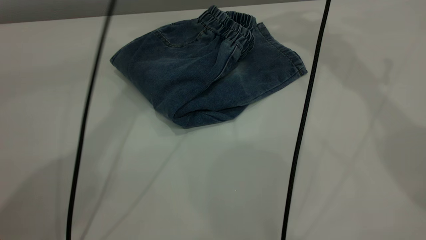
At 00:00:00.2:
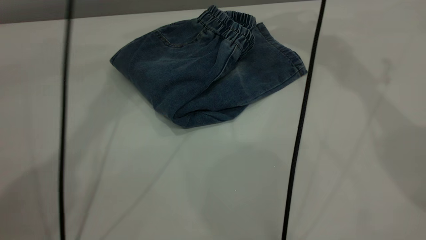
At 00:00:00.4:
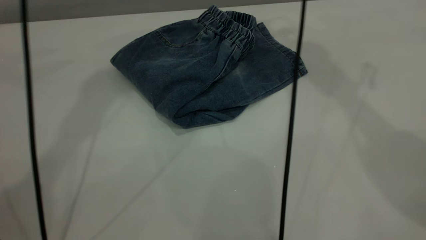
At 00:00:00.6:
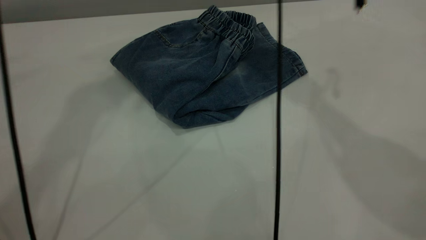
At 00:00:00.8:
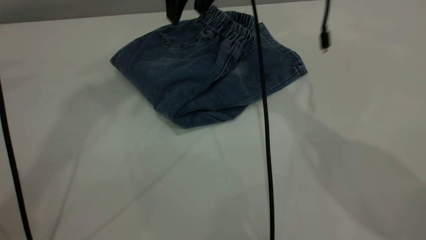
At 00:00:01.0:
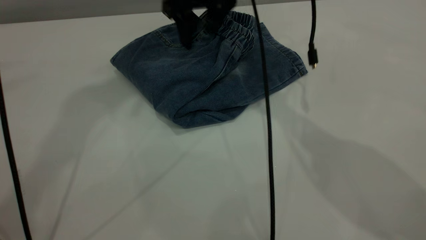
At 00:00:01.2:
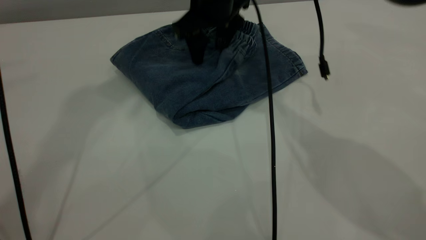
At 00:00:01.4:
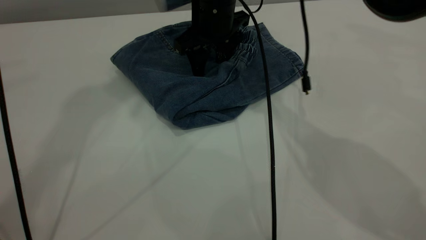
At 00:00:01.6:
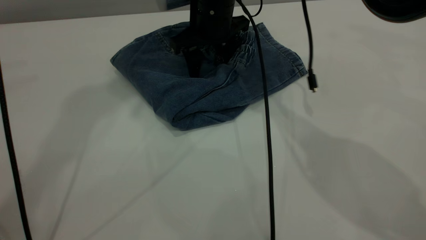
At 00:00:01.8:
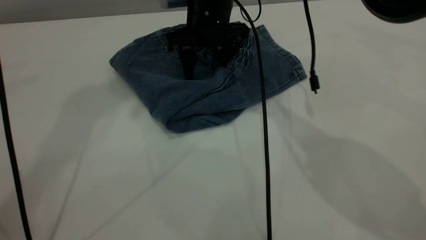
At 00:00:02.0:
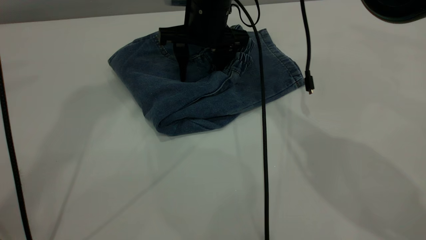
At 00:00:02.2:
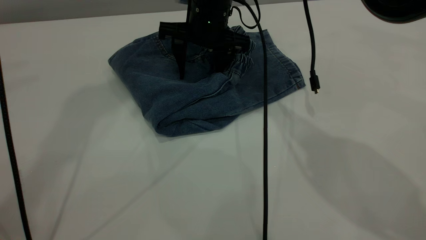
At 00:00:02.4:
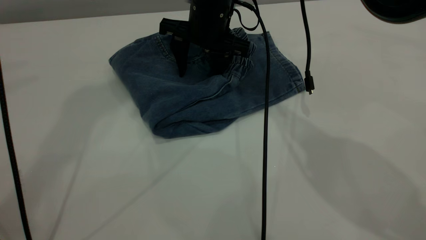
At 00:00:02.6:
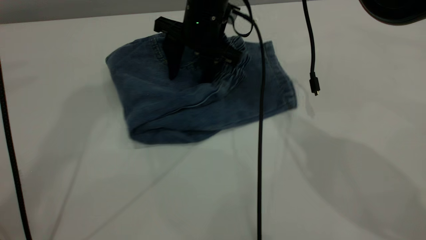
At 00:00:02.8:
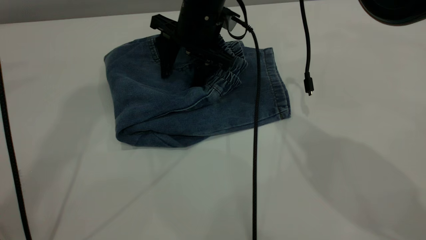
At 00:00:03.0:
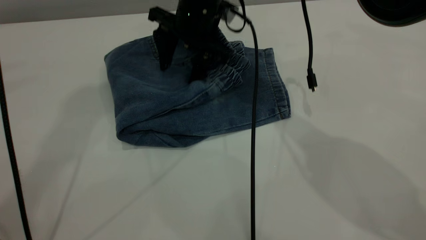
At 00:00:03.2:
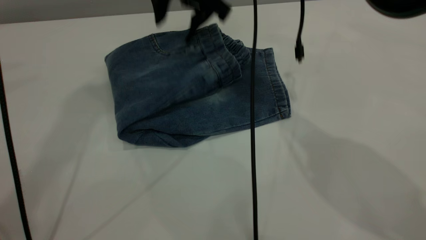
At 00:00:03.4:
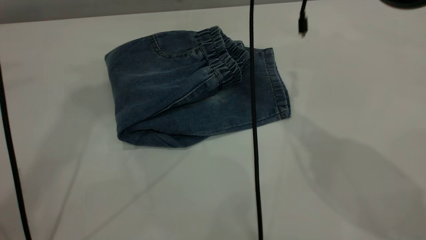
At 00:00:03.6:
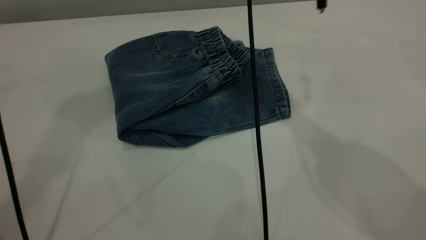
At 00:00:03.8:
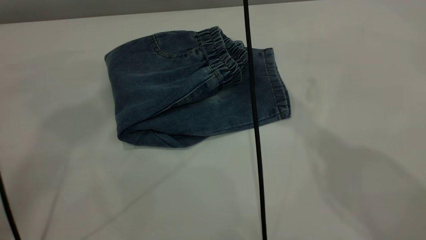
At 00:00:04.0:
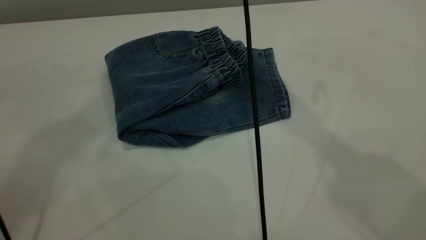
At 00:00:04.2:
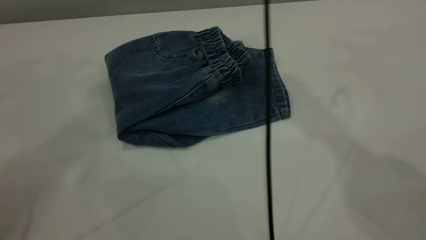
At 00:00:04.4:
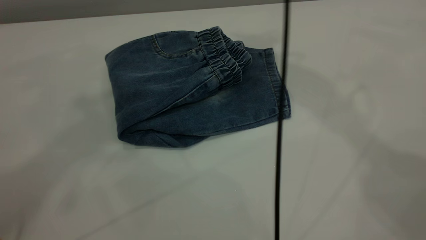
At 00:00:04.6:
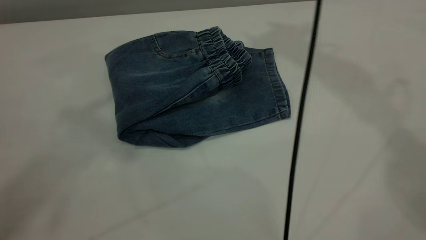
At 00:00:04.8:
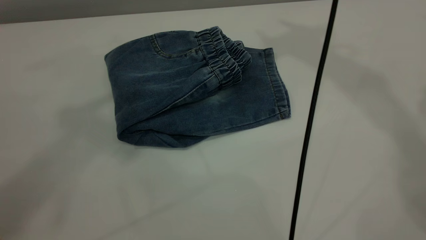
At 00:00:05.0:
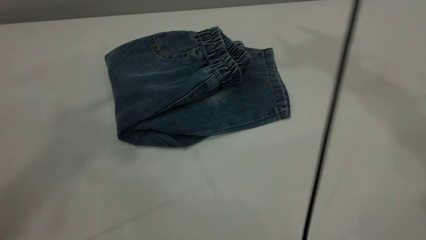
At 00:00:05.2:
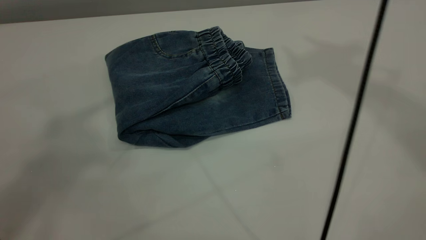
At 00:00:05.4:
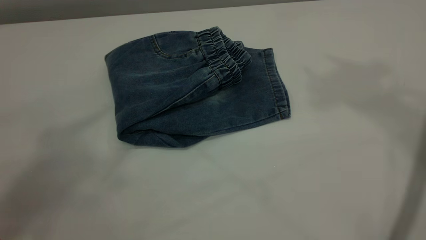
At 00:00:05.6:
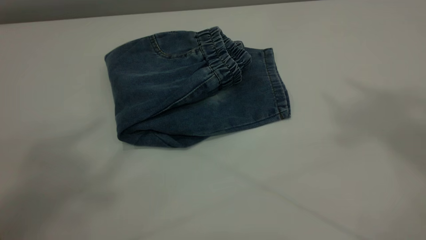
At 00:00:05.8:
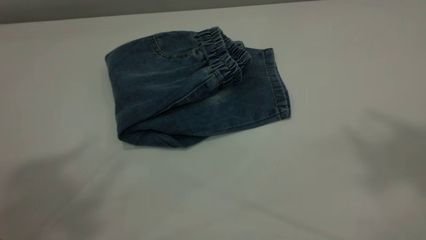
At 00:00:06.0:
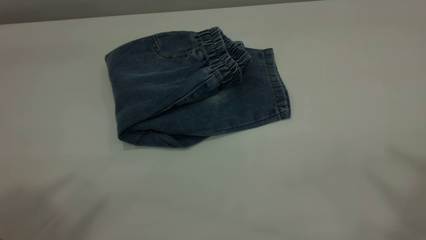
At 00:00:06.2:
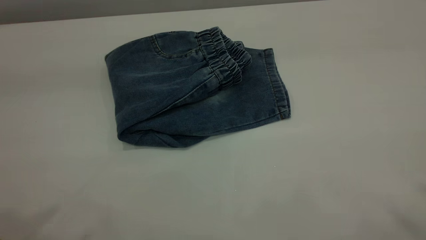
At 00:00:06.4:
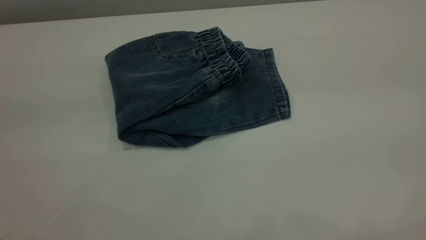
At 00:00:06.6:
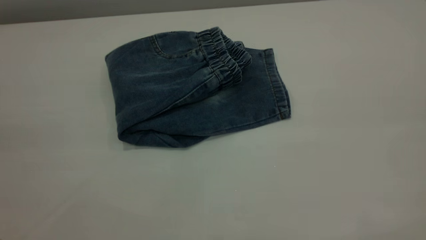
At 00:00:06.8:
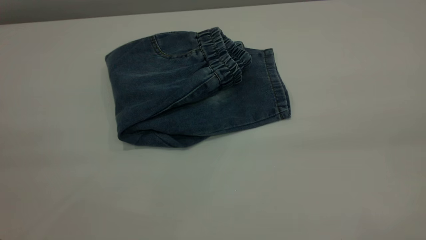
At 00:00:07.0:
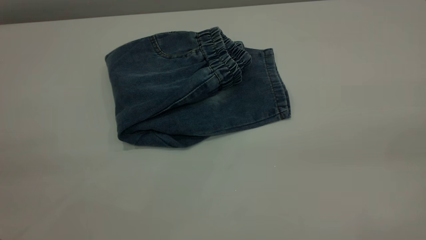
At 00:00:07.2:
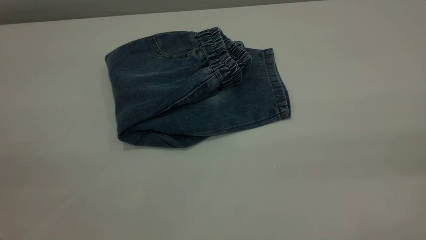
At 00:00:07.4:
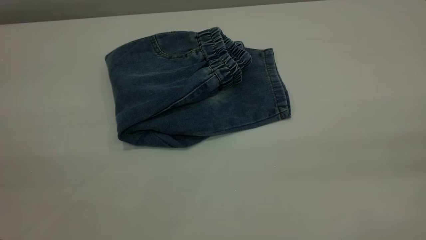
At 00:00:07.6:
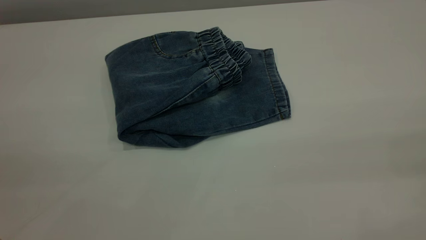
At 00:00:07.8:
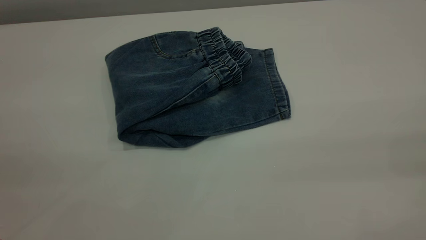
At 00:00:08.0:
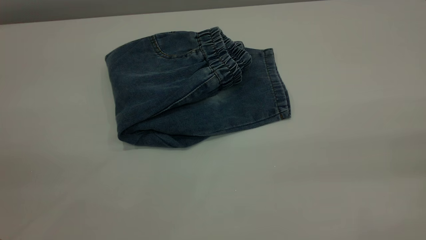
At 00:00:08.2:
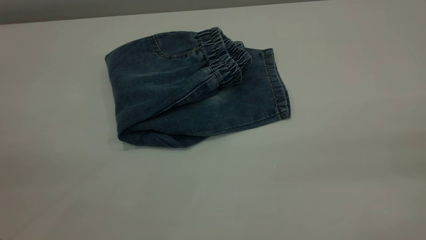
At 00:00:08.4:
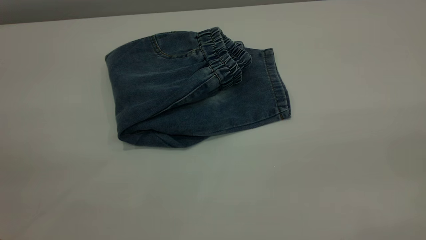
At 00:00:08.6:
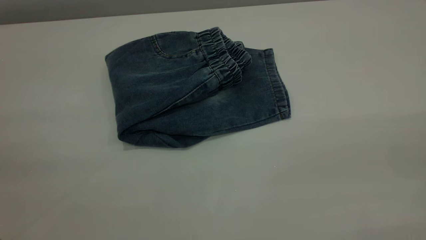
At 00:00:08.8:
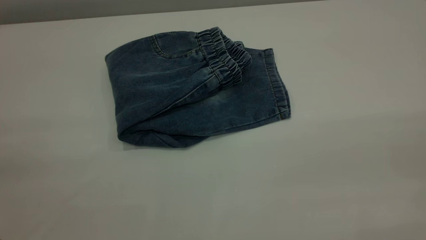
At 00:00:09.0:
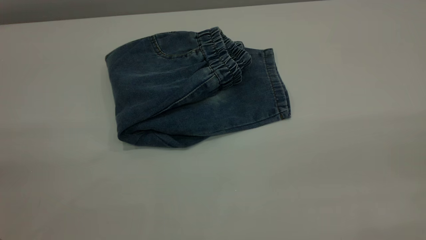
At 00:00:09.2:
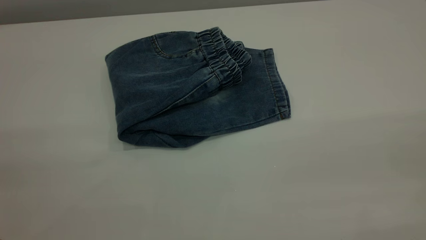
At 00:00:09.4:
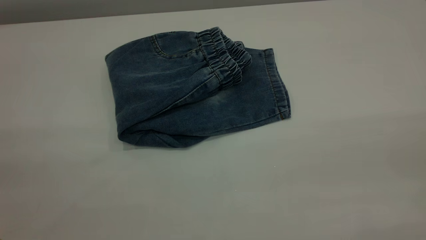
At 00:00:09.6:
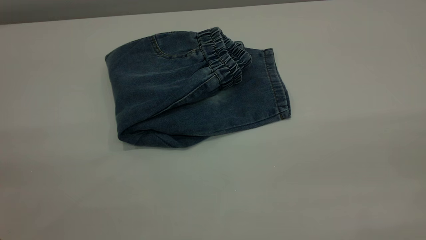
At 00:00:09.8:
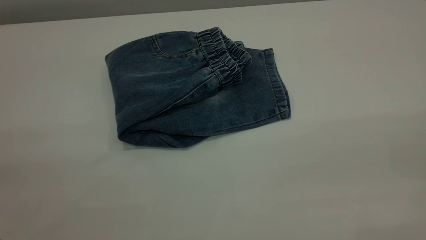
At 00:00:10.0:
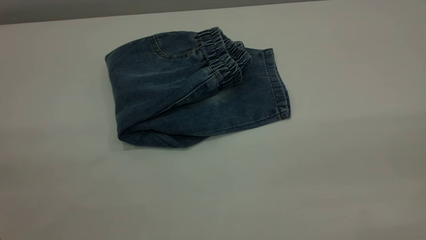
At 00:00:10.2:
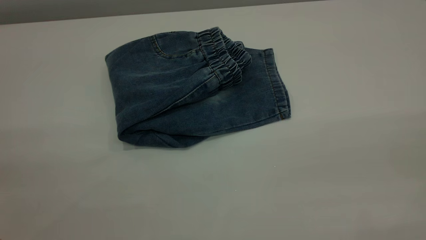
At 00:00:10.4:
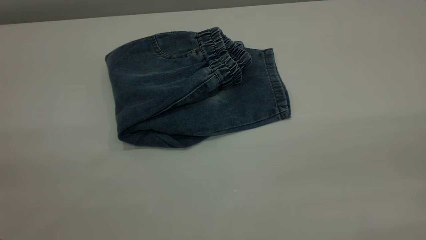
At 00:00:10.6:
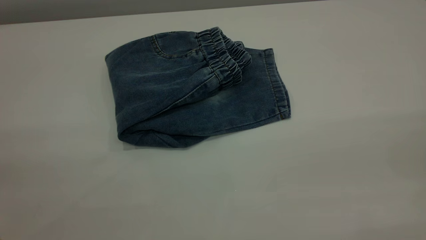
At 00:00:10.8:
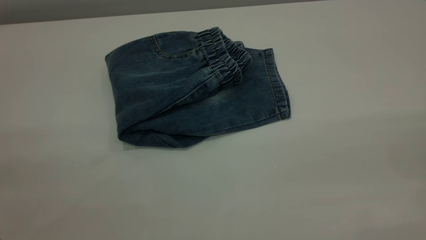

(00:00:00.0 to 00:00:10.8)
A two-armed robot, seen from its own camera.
00:00:00.0 - 00:00:01.6: The left gripper is displaced upward by some 20 cm; the right gripper is displaced downward and to the left by about 25 cm.
00:00:03.0 - 00:00:04.6: The left gripper moves backward and upward, approximately 20 cm. The right gripper goes some 40 cm upward and to the right.
00:00:04.6 - 00:00:06.2: The right gripper is displaced backward by roughly 35 cm.
00:00:09.2 - 00:00:10.8: Neither gripper changes place.
